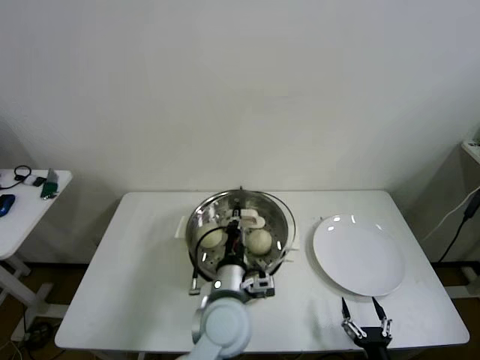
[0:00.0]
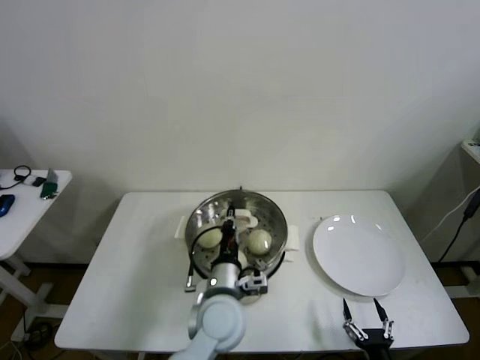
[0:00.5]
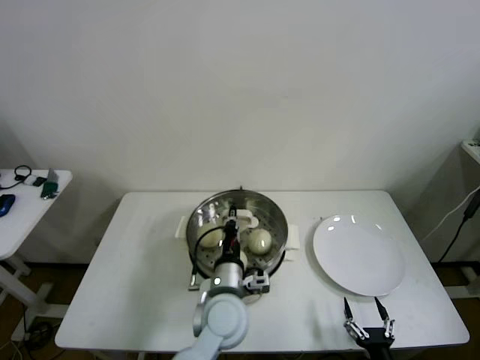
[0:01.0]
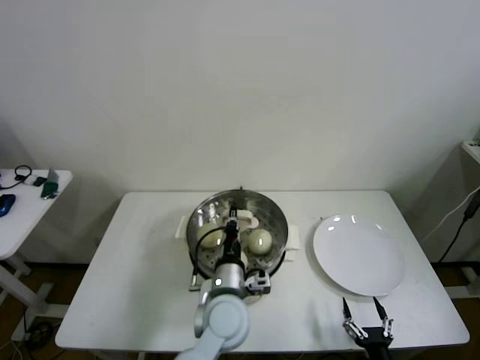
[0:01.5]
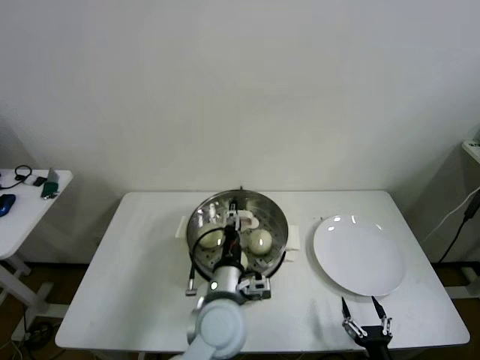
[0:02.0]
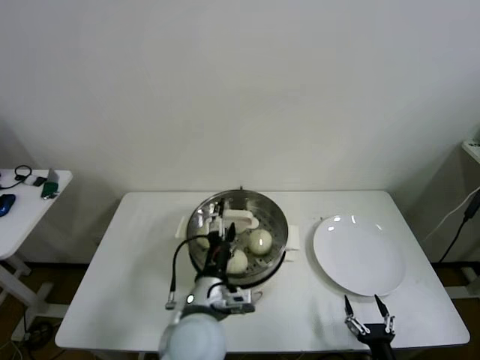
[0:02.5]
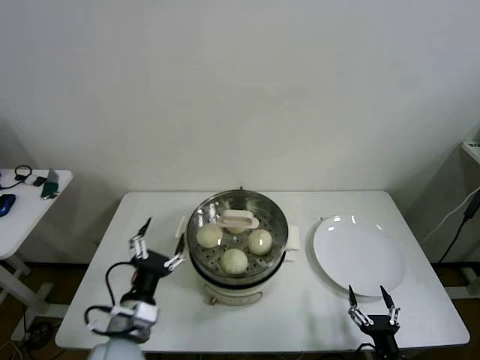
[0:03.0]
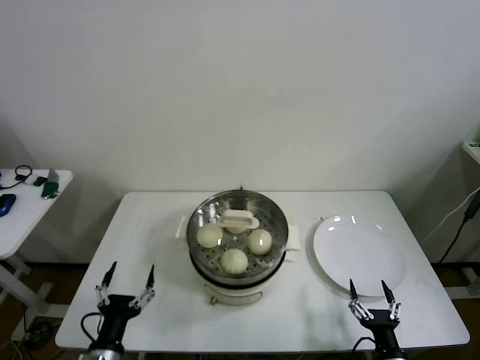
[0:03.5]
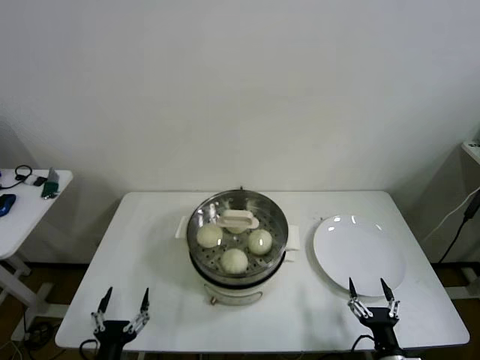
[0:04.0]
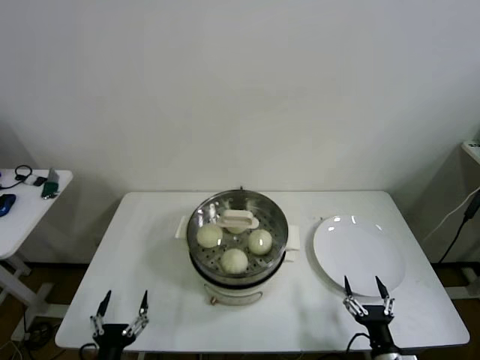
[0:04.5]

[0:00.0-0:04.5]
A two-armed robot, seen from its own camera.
0:00.0 to 0:02.0: The left gripper opens.
0:02.0 to 0:04.5: The left gripper shifts about 35 cm to the left, backward and downward, and opens its fingers.

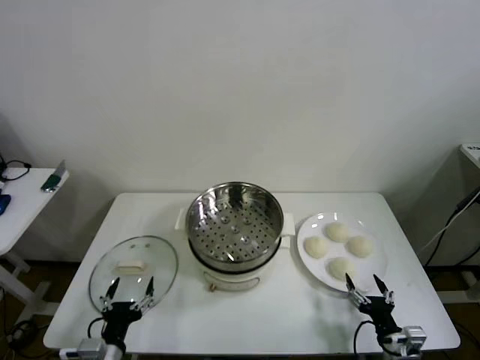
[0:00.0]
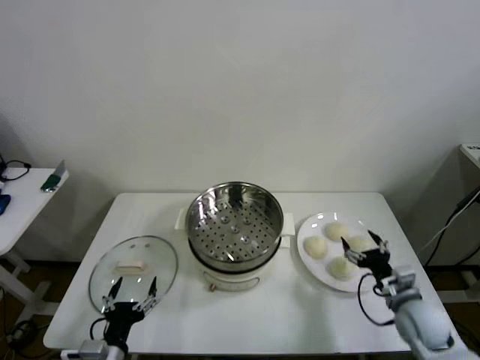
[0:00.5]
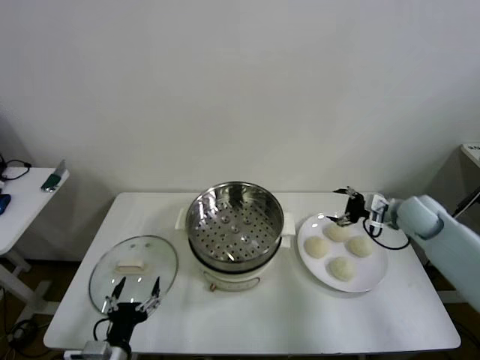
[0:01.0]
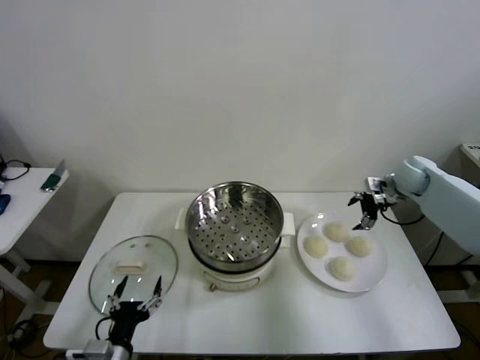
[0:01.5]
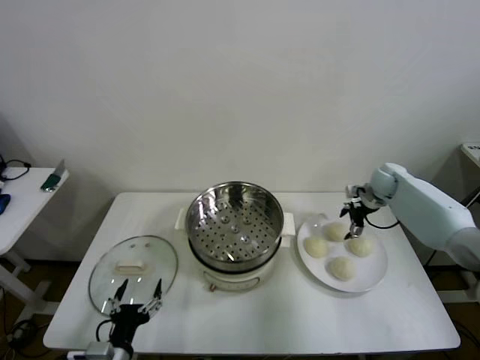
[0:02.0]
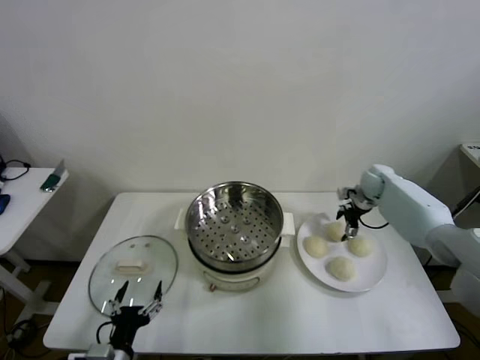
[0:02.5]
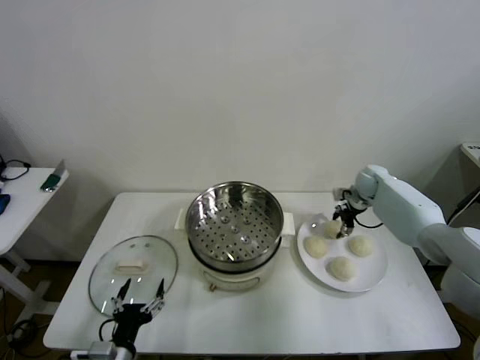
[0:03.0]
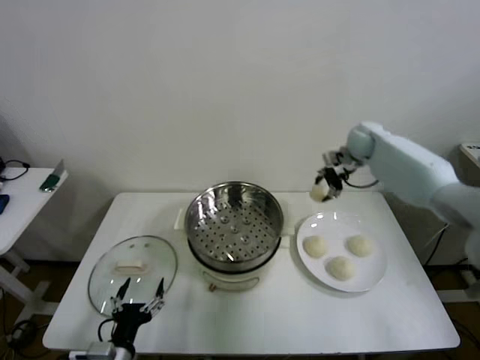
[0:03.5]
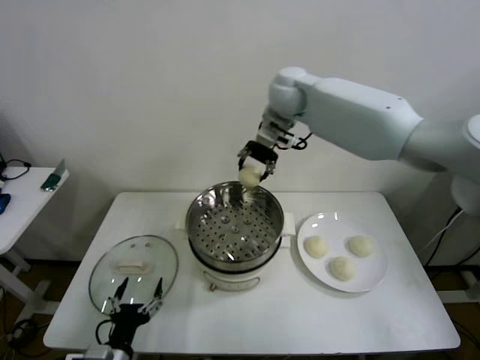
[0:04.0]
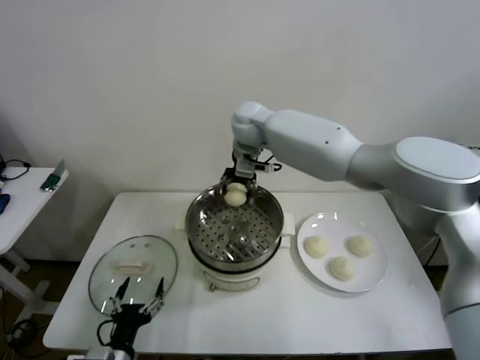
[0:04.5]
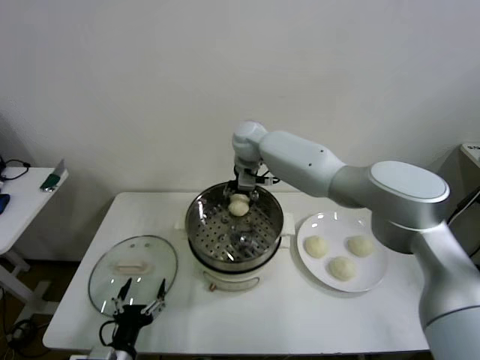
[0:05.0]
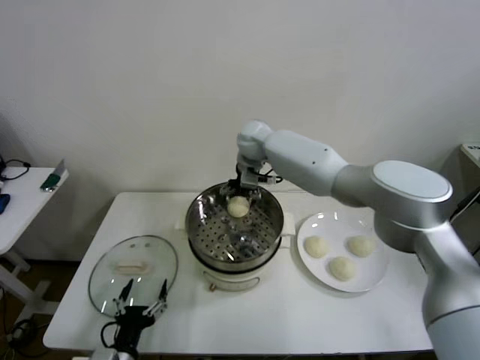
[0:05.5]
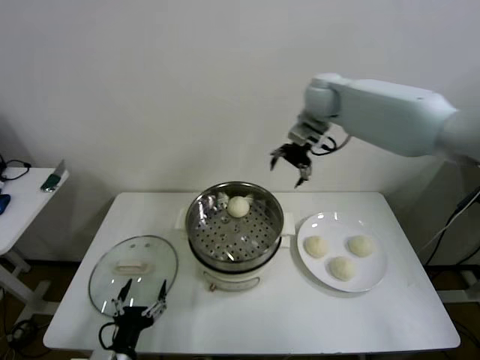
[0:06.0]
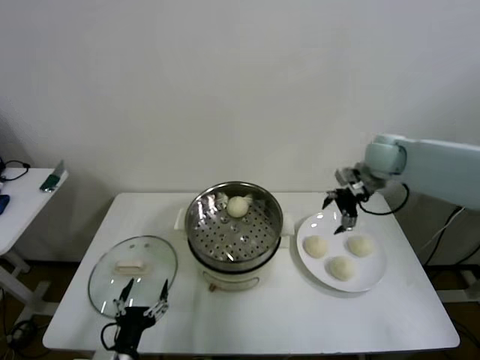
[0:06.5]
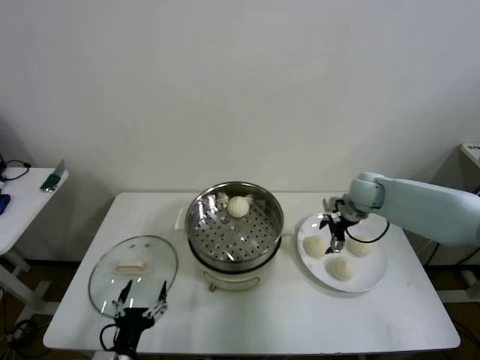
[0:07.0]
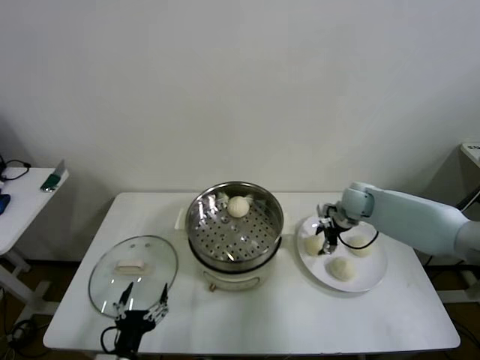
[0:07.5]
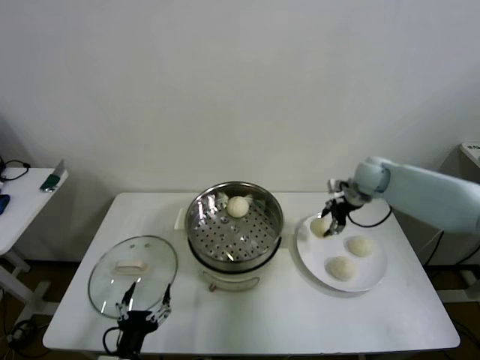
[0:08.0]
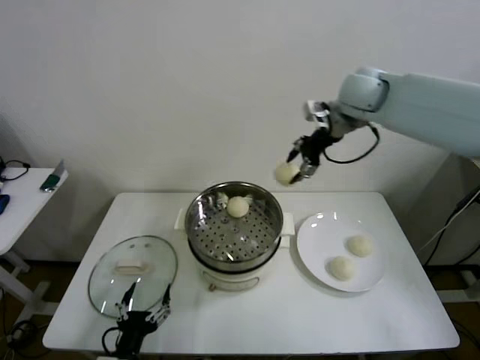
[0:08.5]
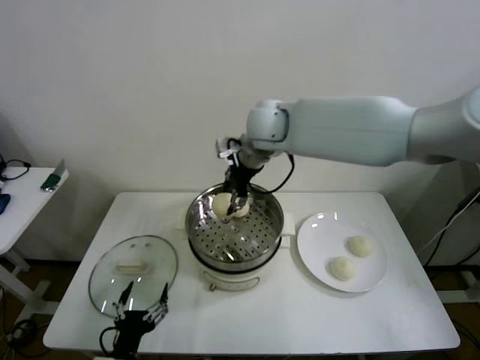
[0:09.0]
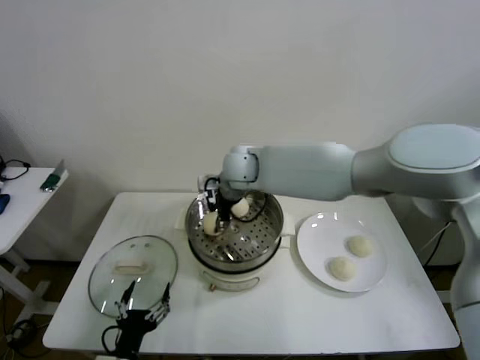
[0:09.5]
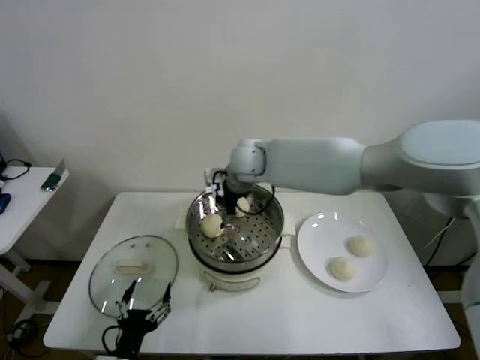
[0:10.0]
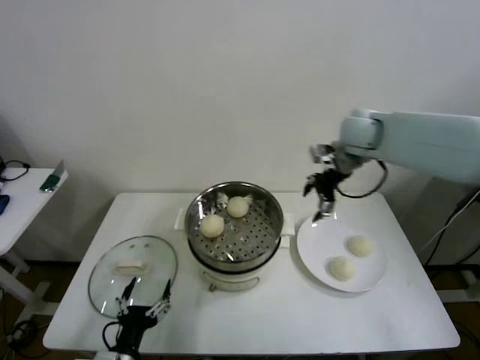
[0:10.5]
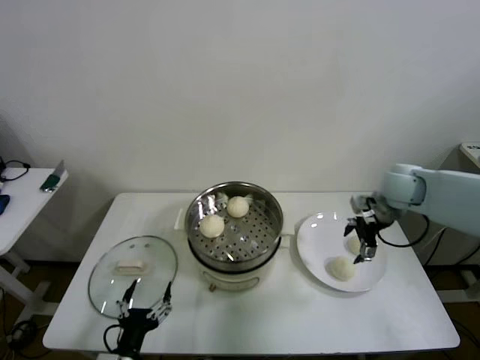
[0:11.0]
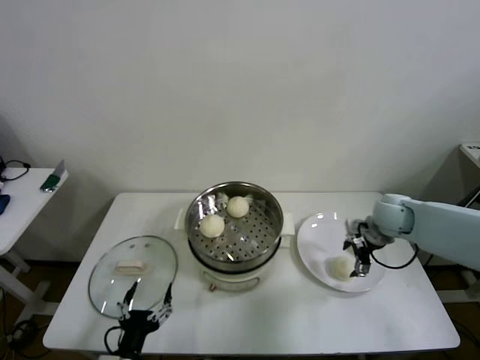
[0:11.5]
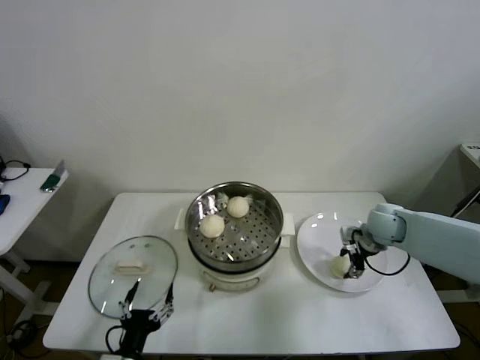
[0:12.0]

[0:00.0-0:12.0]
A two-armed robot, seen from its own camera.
Step, 0:00.0 to 0:02.5: Grasp the baozi in the plate with right gripper.
Step, 0:03.0 to 0:05.0: Place the baozi on the steamer with right gripper.
Step, 0:05.5 to 0:07.5: Grasp the baozi in the plate with right gripper.
Step, 0:08.0 to 0:09.5: Place the baozi on the steamer with right gripper.
Step, 0:10.0 to 0:12.0: Grasp the baozi in the plate with right gripper.
0:02.0 to 0:04.0: The right gripper travels to the left and upward by about 40 cm, and closes its fingers.
0:04.0 to 0:06.0: The right gripper heads to the right, covering approximately 15 cm, and opens.
0:06.0 to 0:08.0: The right gripper shifts about 15 cm downward and to the right, and closes.
0:08.0 to 0:10.0: The right gripper goes some 30 cm to the left, and opens.
0:10.0 to 0:12.0: The right gripper is displaced to the right and downward by some 35 cm, and closes its fingers.

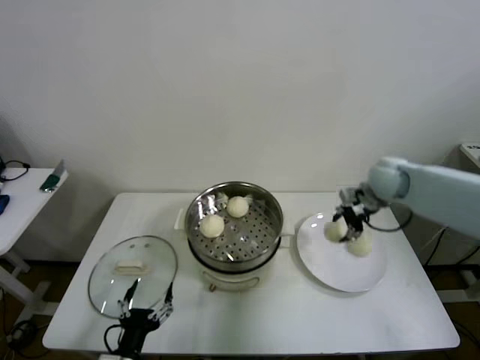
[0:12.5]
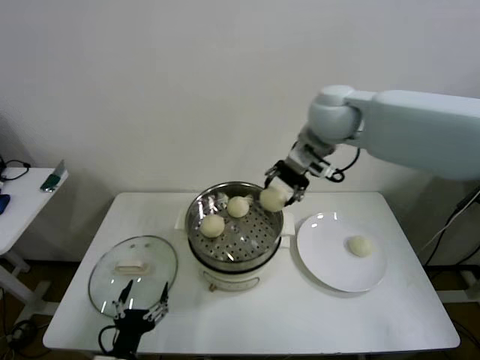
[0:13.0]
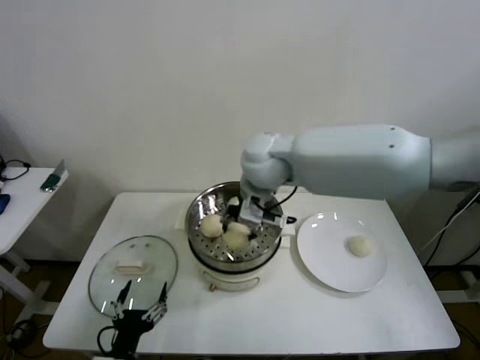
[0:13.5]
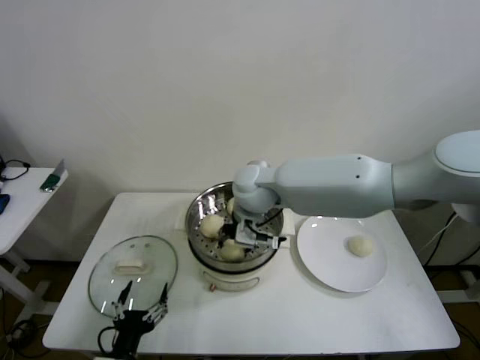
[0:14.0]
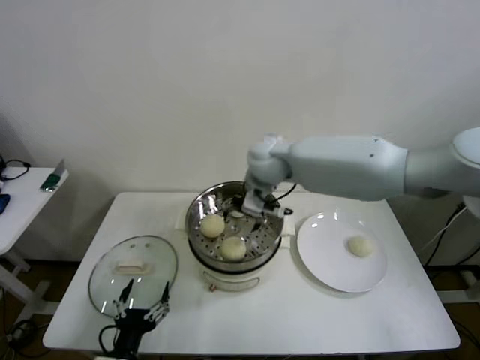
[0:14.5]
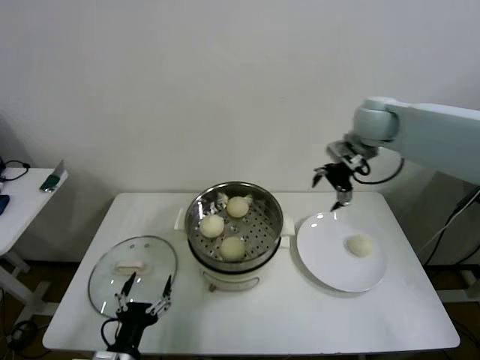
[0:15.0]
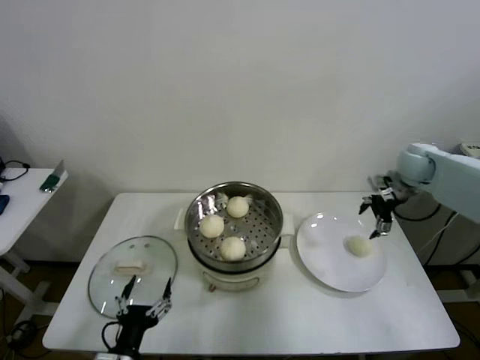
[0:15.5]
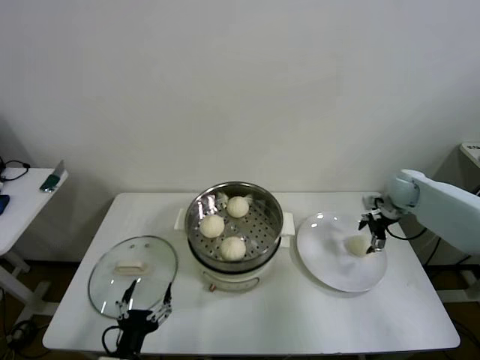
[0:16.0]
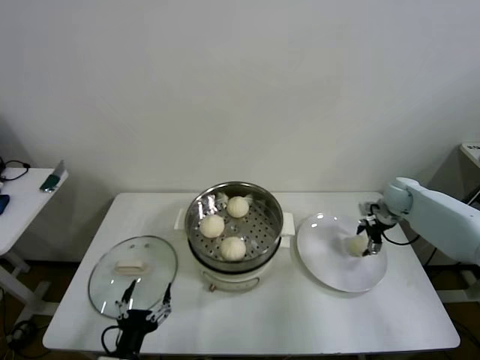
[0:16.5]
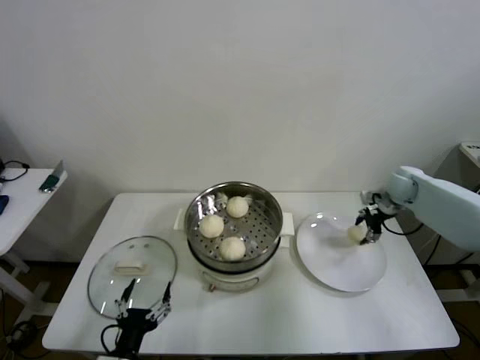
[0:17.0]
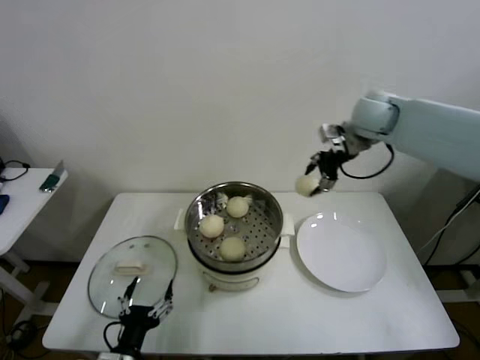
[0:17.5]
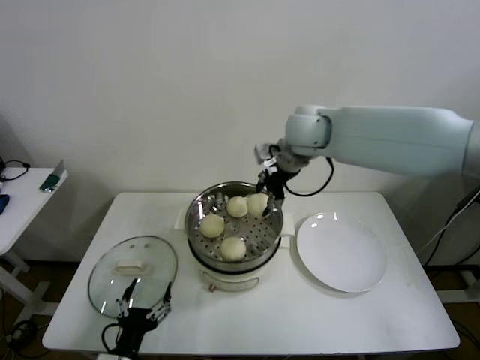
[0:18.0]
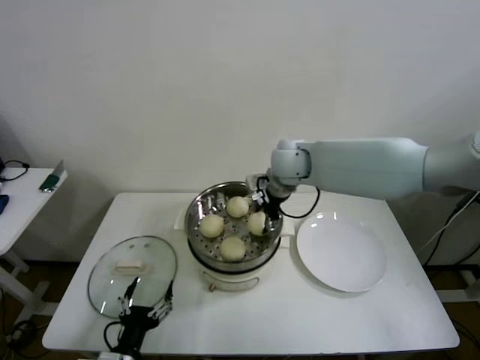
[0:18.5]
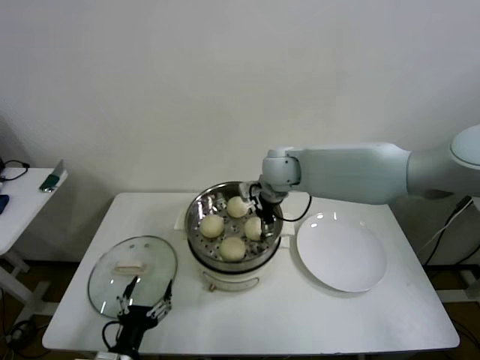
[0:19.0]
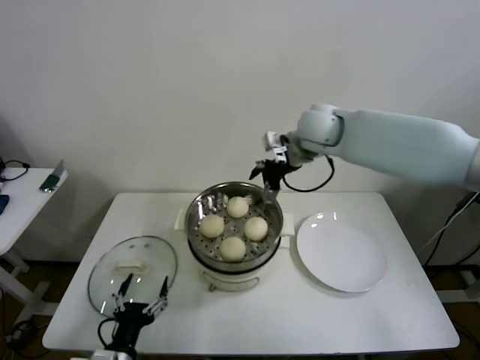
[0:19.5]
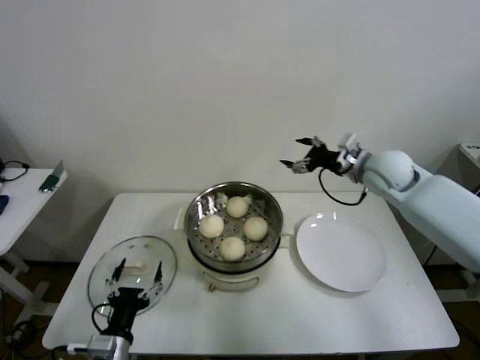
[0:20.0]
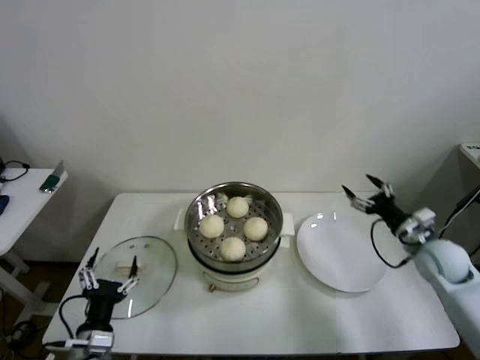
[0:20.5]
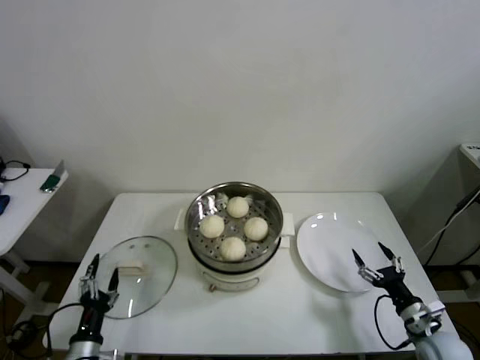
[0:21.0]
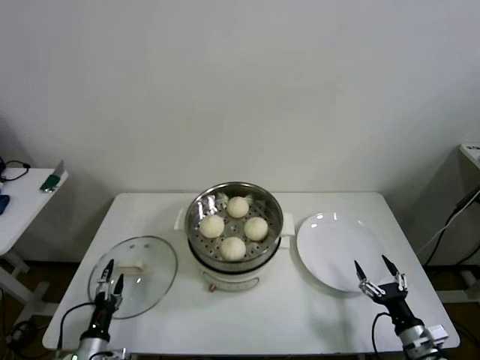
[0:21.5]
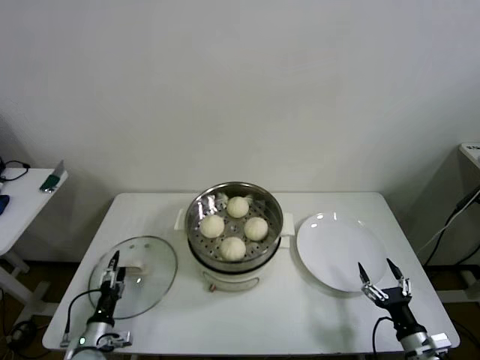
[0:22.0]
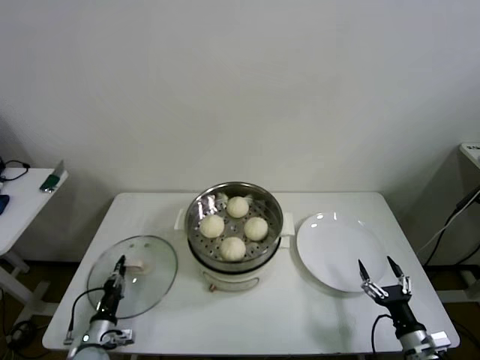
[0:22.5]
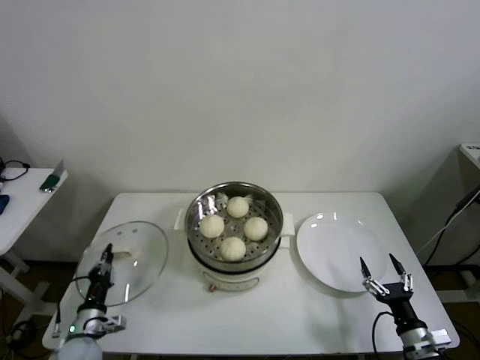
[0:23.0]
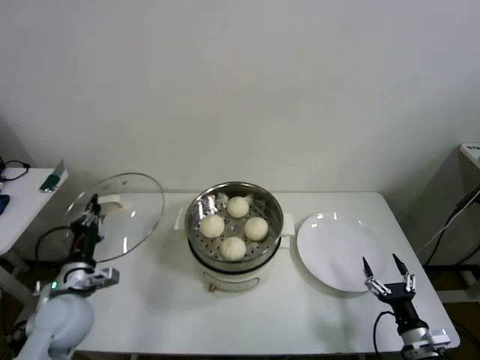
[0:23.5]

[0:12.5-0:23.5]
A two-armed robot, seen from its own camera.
Step, 0:12.5 to 0:14.0: Place the baozi on the steamer with right gripper.
Step, 0:14.5 to 0:16.5: Grasp the baozi in the plate with right gripper.
Step, 0:17.0 to 0:18.5: Place the baozi on the steamer with right gripper.
Step, 0:19.0 to 0:22.5: Grasp the pot lid with left gripper.
0:12.5 to 0:14.5: The right gripper travels to the left by some 25 cm, and opens its fingers.
0:14.5 to 0:16.0: The right gripper moves to the right and downward, roughly 40 cm.
0:16.0 to 0:18.0: The right gripper moves to the left and upward, roughly 35 cm, and closes up.
0:18.0 to 0:20.0: The right gripper goes roughly 20 cm to the right and downward, and opens up.
0:20.0 to 0:21.5: The right gripper heads backward and downward, covering approximately 40 cm, while the left gripper heads downward and to the left, covering roughly 15 cm.
0:21.5 to 0:23.5: The left gripper moves upward and forward, about 20 cm, and closes its fingers.
